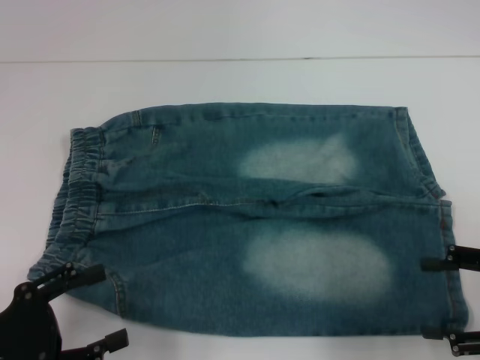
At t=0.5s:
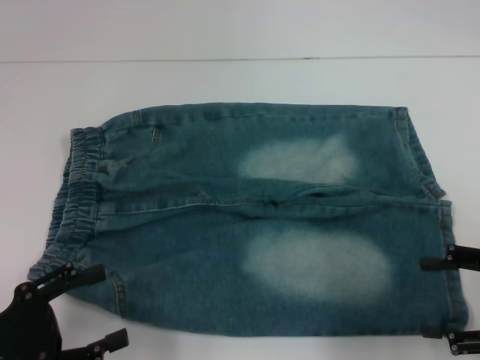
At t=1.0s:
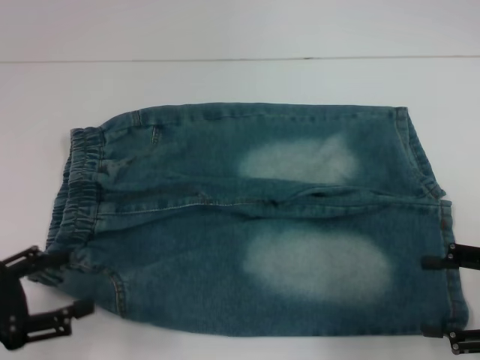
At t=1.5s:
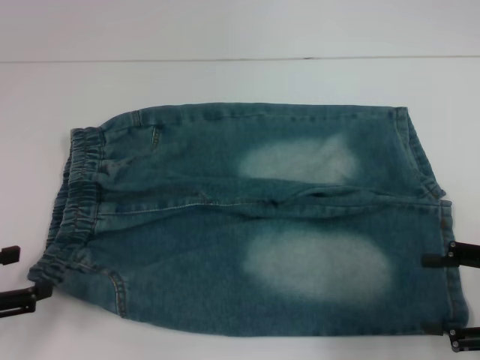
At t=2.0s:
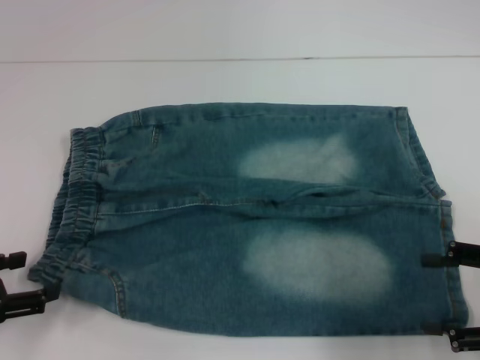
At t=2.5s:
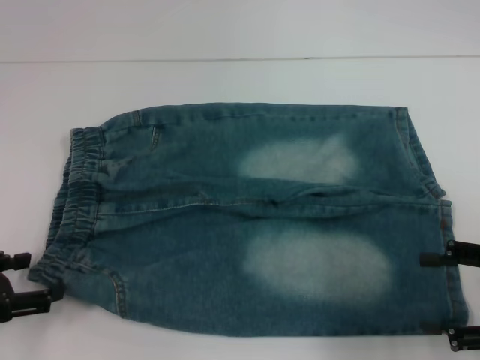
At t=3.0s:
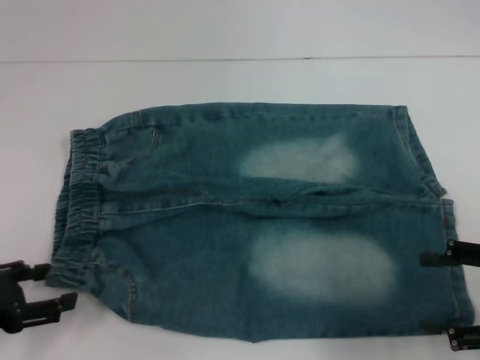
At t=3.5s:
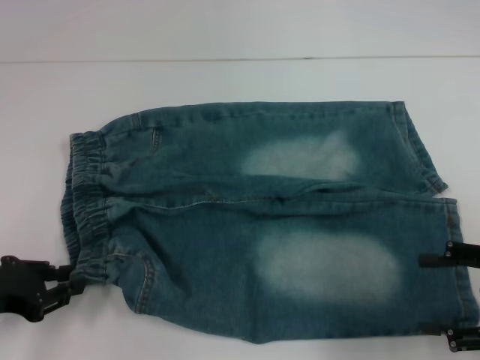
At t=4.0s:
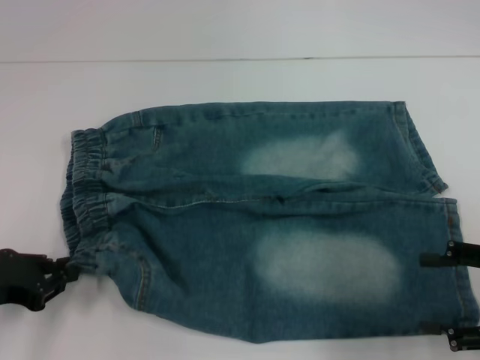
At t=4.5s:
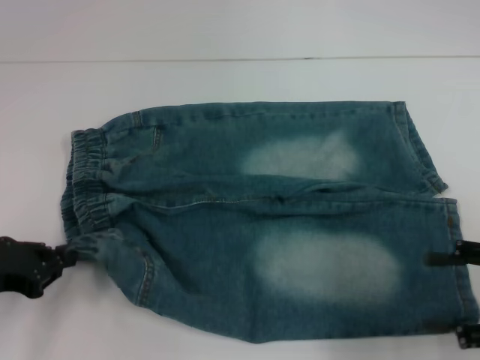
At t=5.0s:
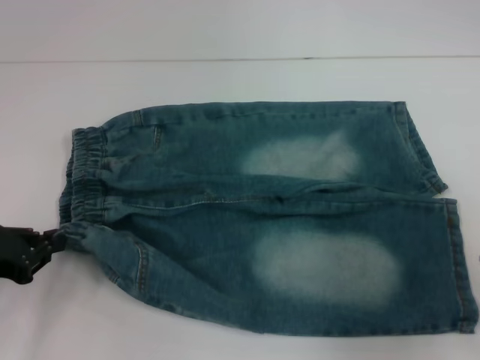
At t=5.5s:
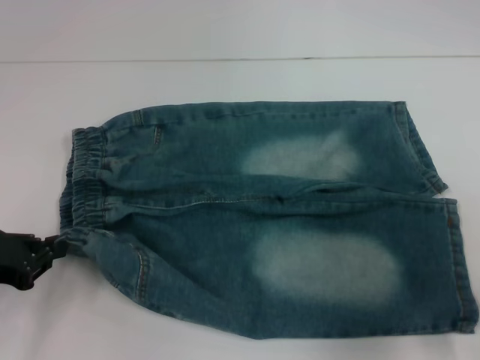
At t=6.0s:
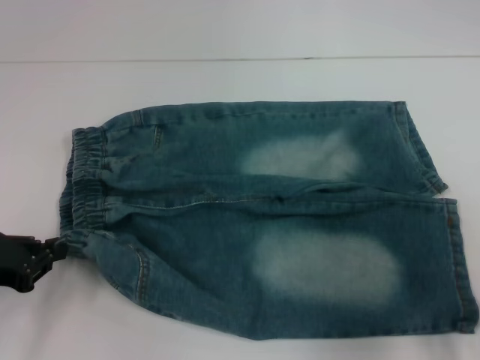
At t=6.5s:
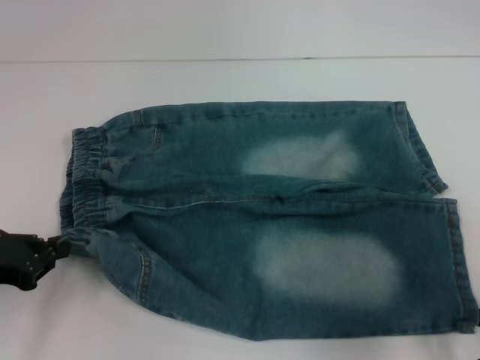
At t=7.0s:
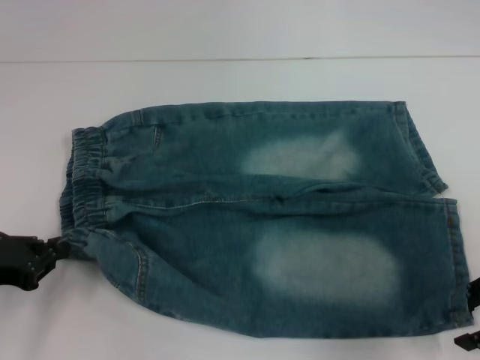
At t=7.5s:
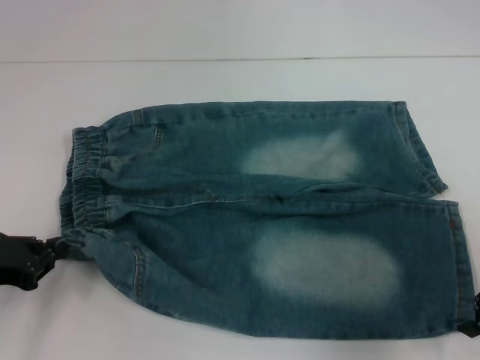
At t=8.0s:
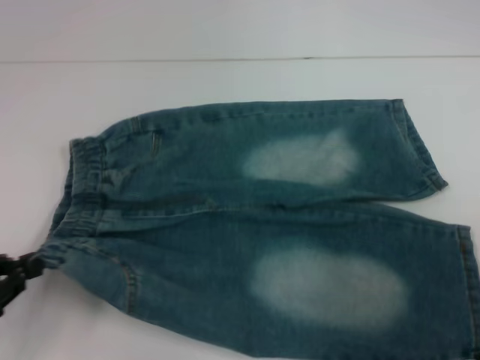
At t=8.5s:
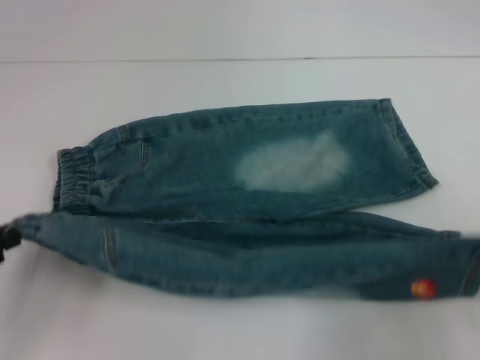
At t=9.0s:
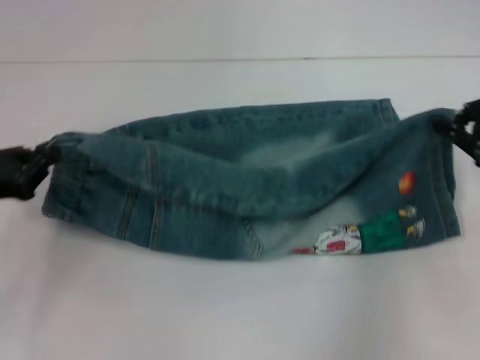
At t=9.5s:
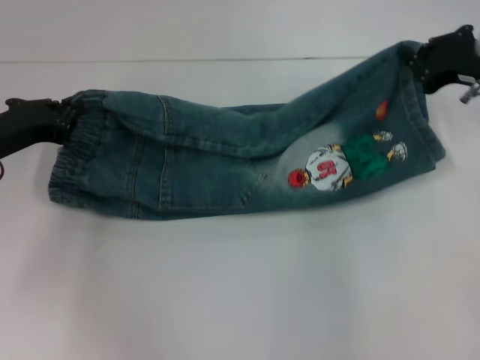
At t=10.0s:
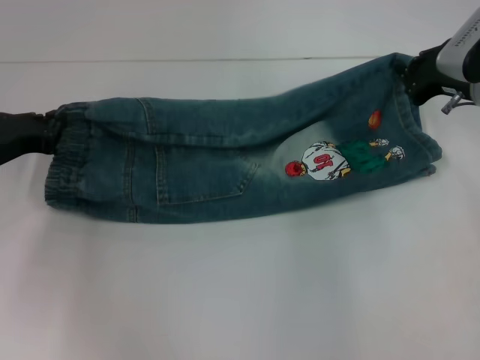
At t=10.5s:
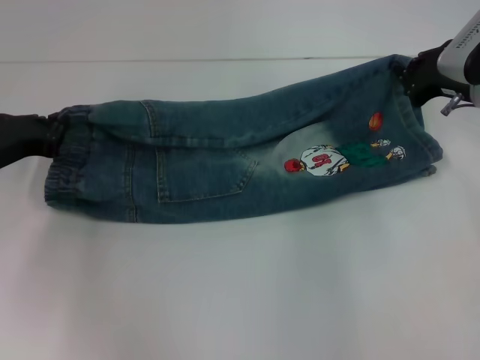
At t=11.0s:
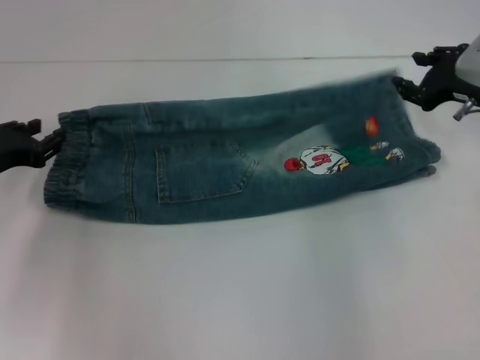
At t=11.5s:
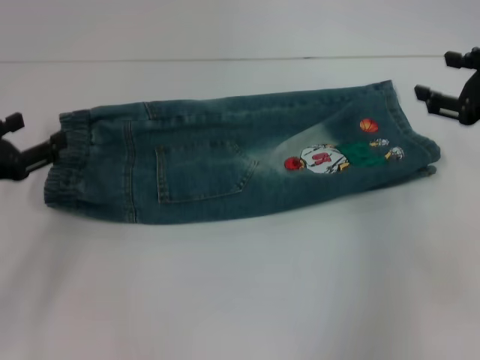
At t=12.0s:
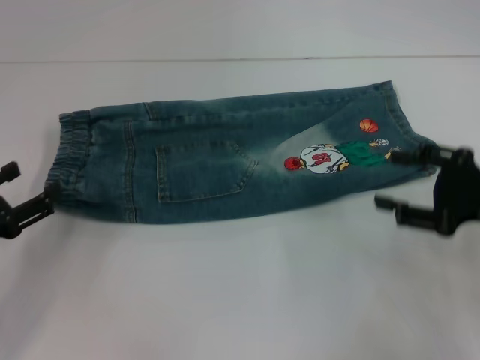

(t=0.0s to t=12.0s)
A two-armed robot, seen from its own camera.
Step, t=0.0s - t=3.0s: Hold the lower left waistband with your left hand.
Step, t=3.5s - t=7.0s: Grab the lower right pant leg with your right hand.
Step, t=7.5s - t=11.0s: Fold upward with your right hand.
t=0.0s - t=2.0s: The left gripper shifts by some 5 cm.
t=2.0s - t=4.0s: The left gripper closes its fingers.
t=4.0s - t=6.0s: The right gripper moves forward, about 5 cm.
t=6.0s - t=8.0s: The right gripper closes up.
t=8.0s - t=10.0s: Both grippers travel together forward, about 15 cm.
t=10.0s - t=12.0s: Both grippers move backward, some 10 cm. The left gripper opens up. The right gripper opens.

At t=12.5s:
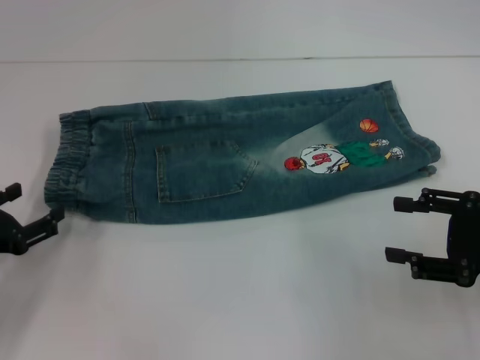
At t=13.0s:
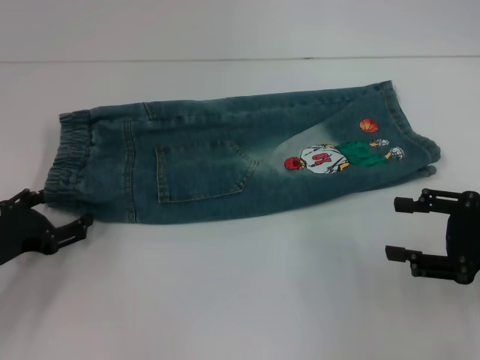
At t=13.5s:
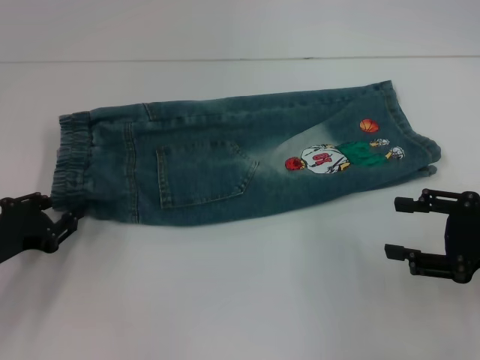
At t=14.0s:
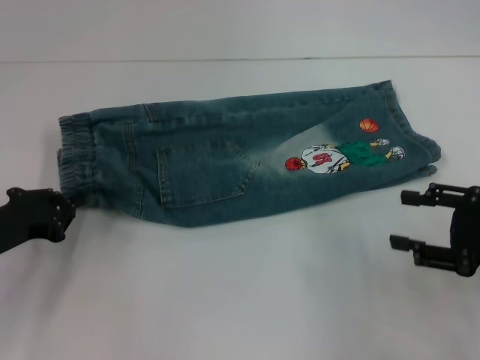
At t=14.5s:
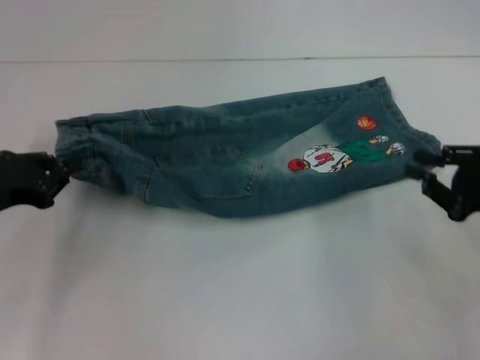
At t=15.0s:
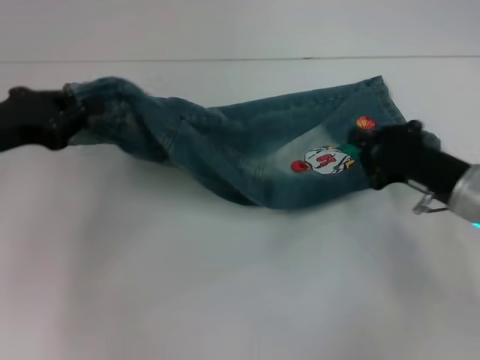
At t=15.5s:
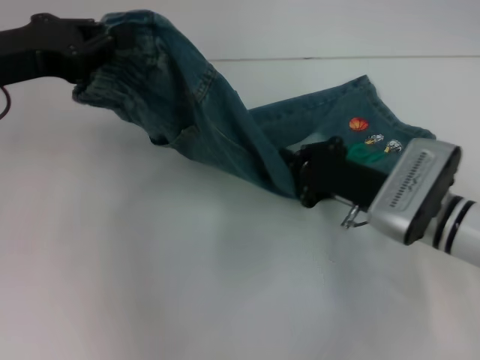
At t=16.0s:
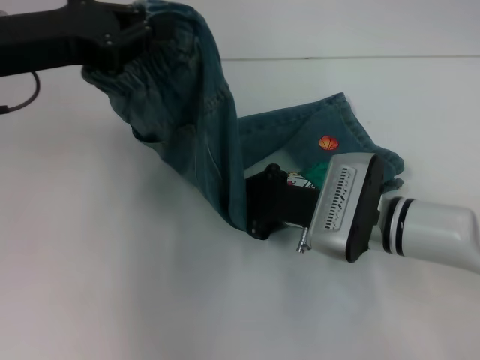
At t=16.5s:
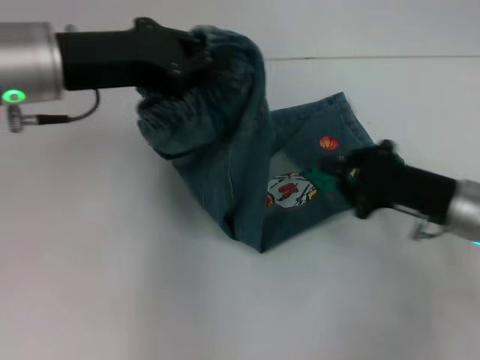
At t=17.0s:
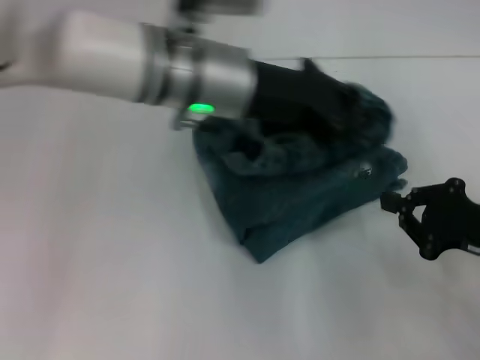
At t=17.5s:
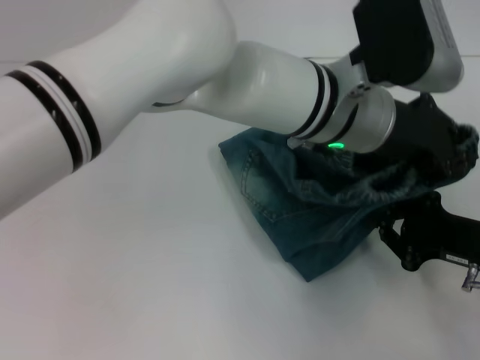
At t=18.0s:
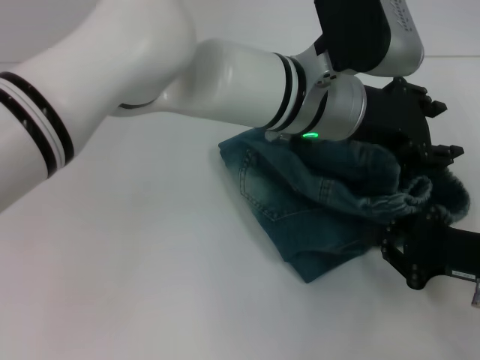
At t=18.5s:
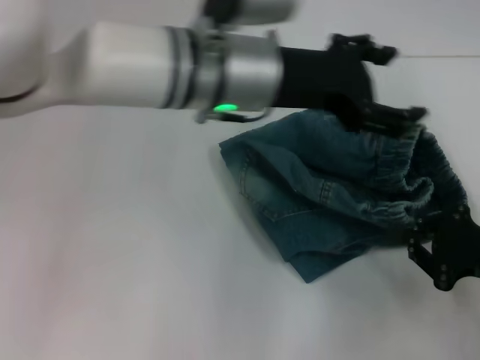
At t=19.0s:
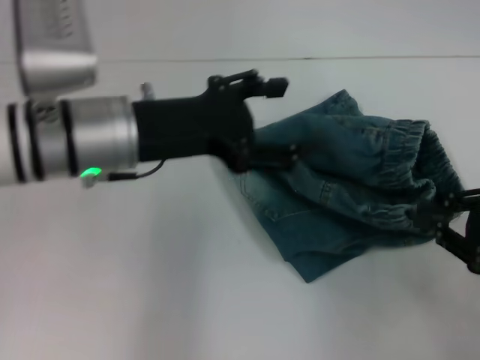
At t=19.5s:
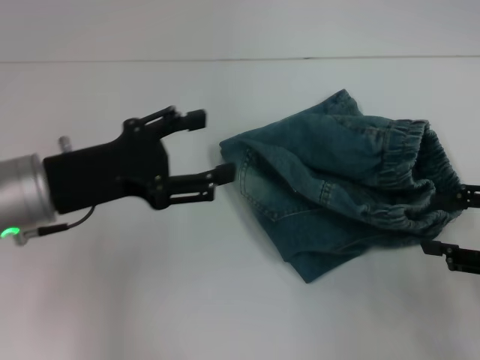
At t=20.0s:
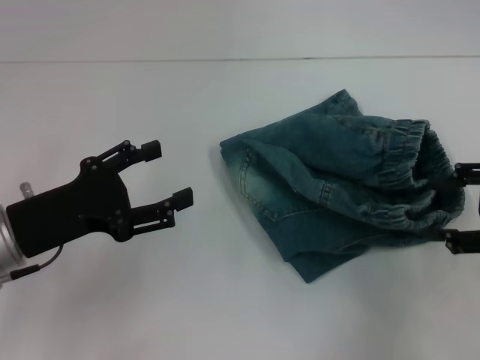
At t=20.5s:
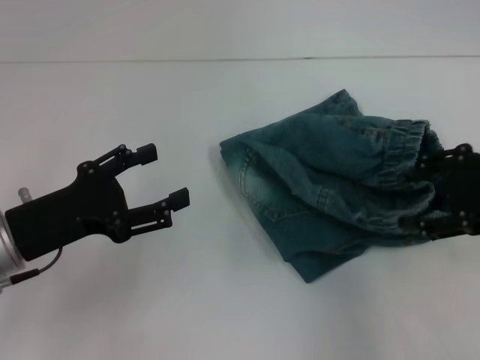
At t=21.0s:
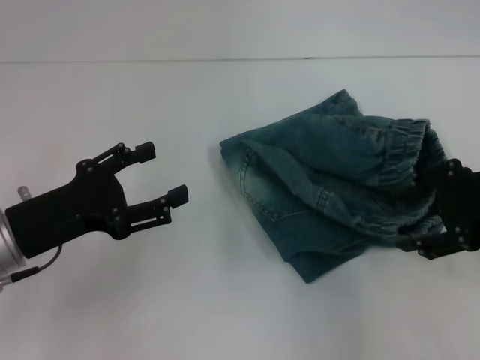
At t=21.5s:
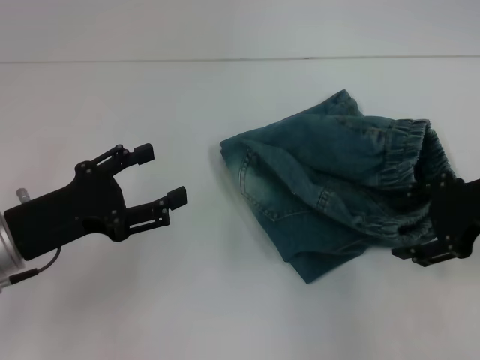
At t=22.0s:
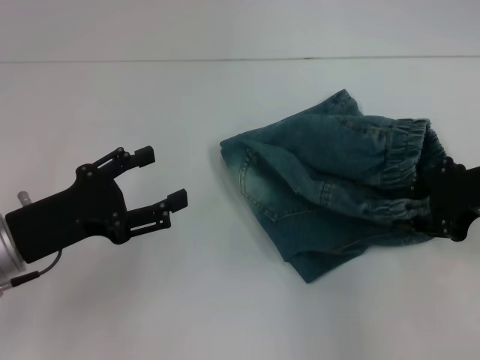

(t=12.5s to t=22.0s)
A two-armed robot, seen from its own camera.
Step, t=13.5s - t=16.0s: Press the middle of the pants with your right hand.
Step, t=16.5s - t=18.0s: Fold to the right with your left hand.
t=12.5s - t=14.5s: The right gripper closes; the left gripper shifts about 5 cm upward, and closes up.
t=14.5s - t=16.5s: The left gripper shifts roughly 20 cm to the right, upward and forward; the right gripper goes about 10 cm to the left, and closes.
t=16.5s - t=18.0s: The left gripper travels to the right by about 25 cm, and opens; the right gripper shifts roughly 5 cm backward.
t=18.0s - t=20.0s: The left gripper is displaced to the left by about 30 cm, and opens its fingers. The right gripper travels upward by approximately 10 cm, and opens up.
t=20.0s - t=22.0s: The right gripper travels forward and to the left by approximately 5 cm.

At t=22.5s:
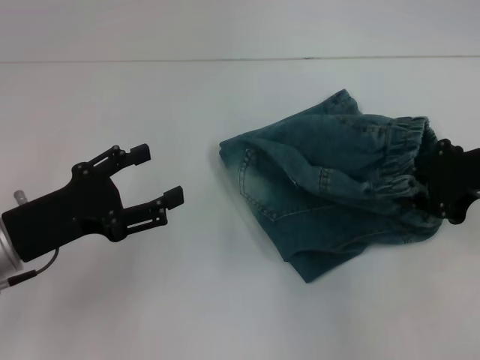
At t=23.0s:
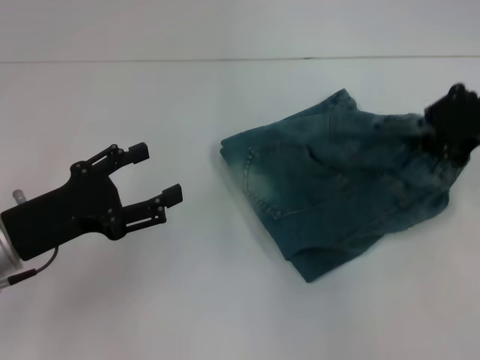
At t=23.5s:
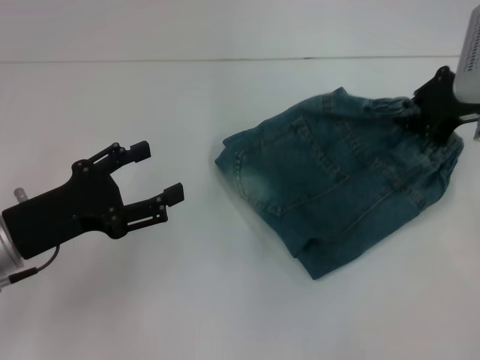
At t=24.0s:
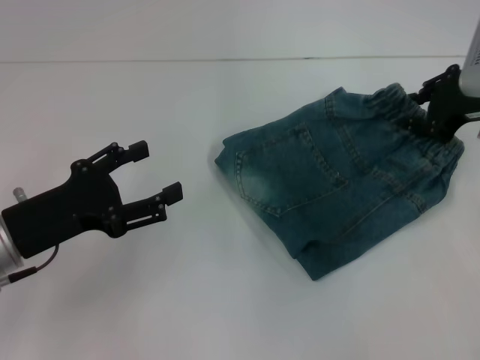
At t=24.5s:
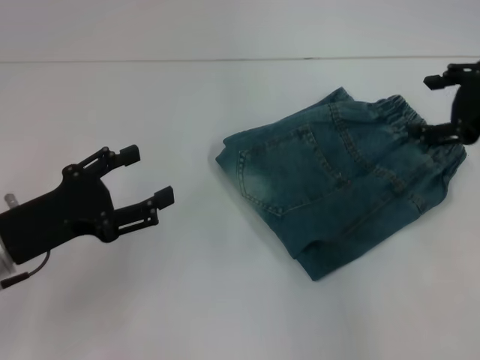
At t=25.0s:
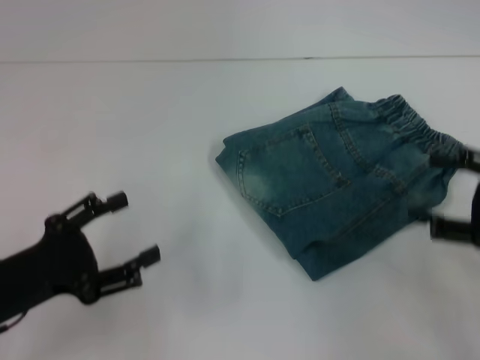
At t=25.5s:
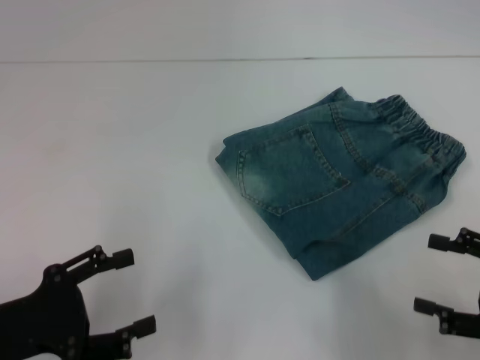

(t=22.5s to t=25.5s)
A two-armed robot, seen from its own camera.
Step, t=22.5s - t=24.5s: Adjust the pants with your right hand.
t=22.5s - t=24.0s: The right gripper travels forward by approximately 5 cm.
t=24.0s - t=25.5s: The left gripper travels backward by about 10 cm. The right gripper heads backward and downward, covering roughly 20 cm, and opens.
